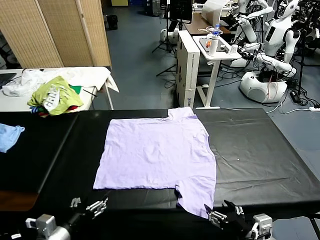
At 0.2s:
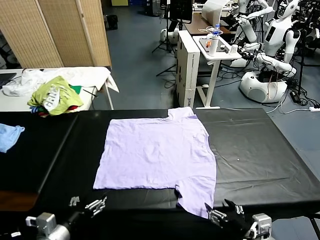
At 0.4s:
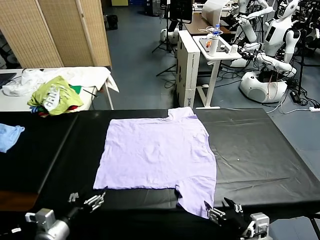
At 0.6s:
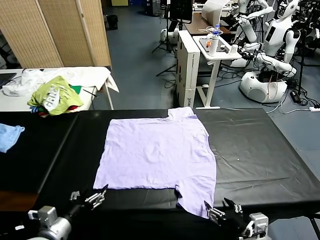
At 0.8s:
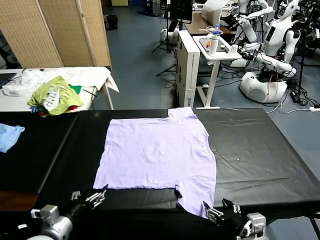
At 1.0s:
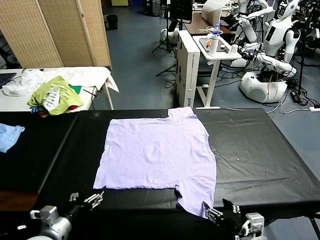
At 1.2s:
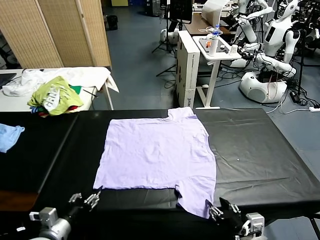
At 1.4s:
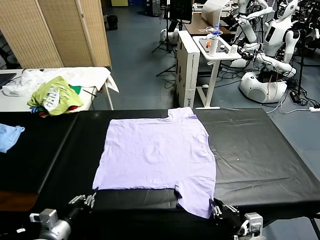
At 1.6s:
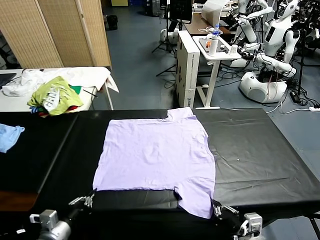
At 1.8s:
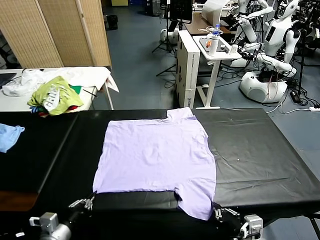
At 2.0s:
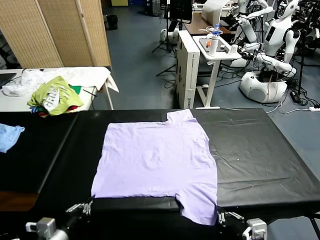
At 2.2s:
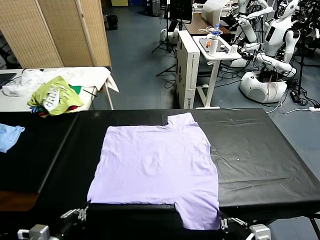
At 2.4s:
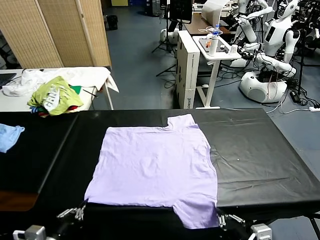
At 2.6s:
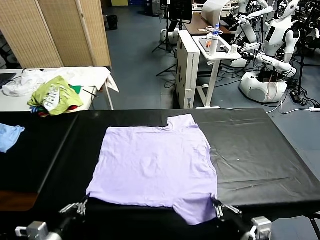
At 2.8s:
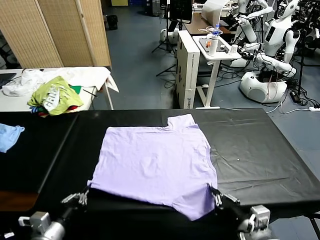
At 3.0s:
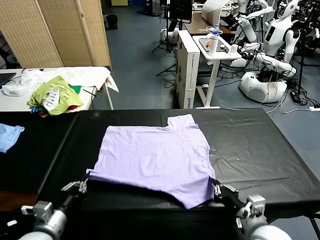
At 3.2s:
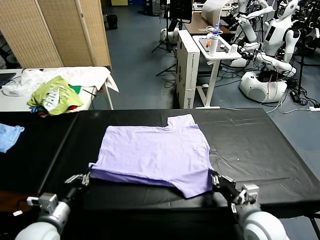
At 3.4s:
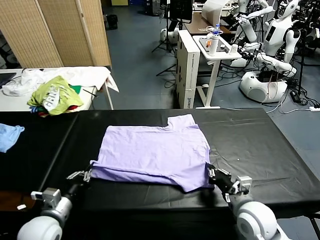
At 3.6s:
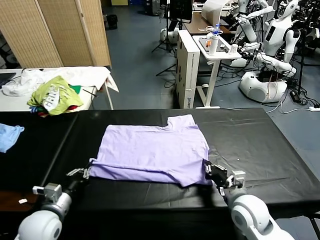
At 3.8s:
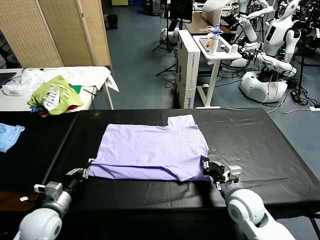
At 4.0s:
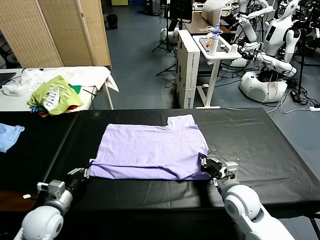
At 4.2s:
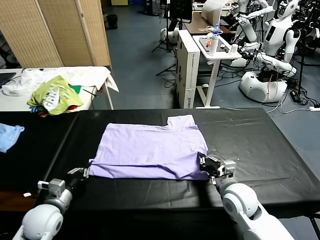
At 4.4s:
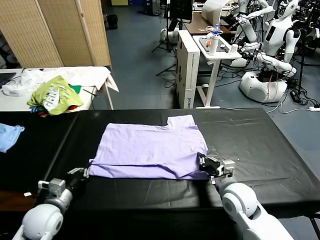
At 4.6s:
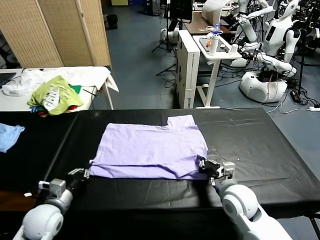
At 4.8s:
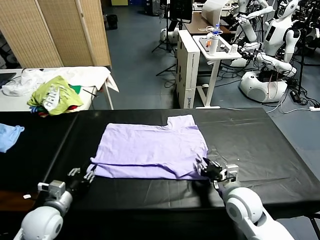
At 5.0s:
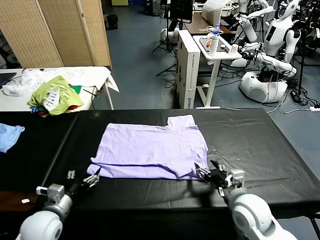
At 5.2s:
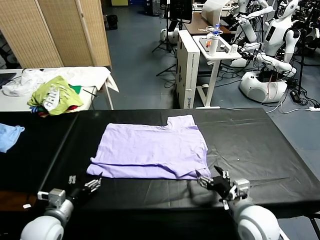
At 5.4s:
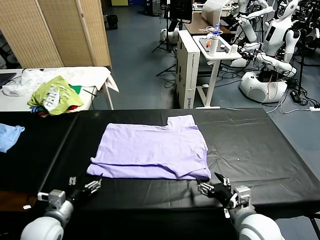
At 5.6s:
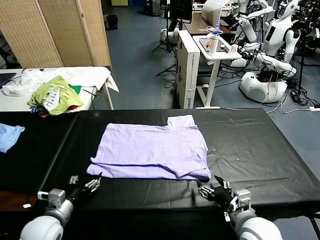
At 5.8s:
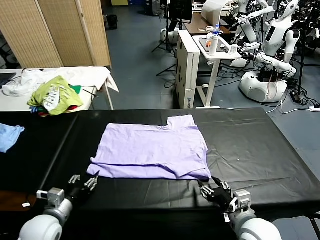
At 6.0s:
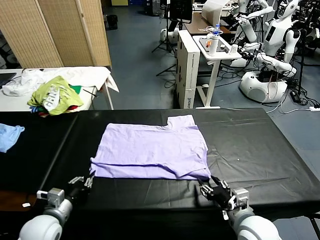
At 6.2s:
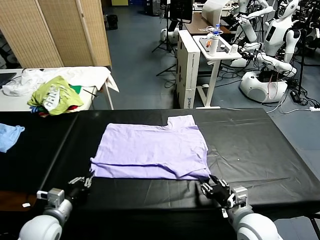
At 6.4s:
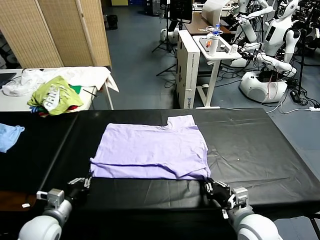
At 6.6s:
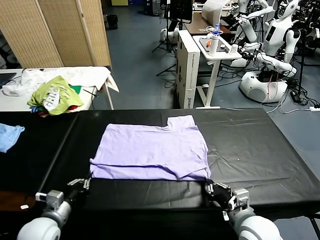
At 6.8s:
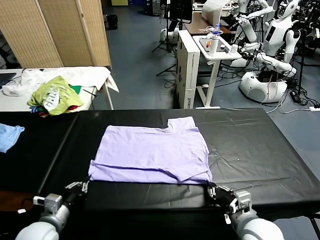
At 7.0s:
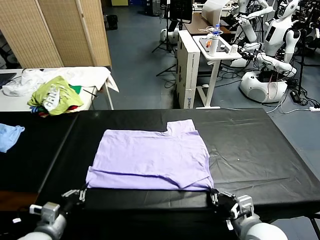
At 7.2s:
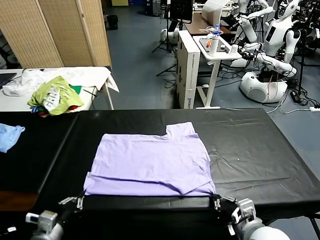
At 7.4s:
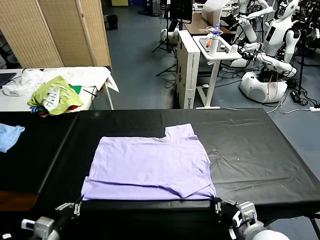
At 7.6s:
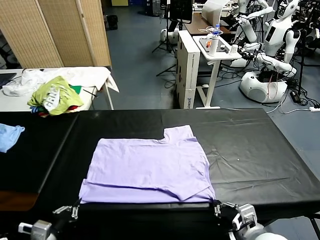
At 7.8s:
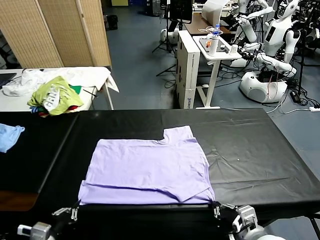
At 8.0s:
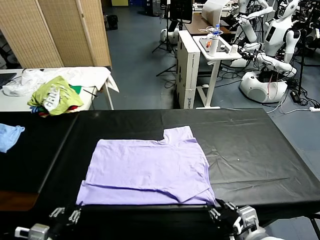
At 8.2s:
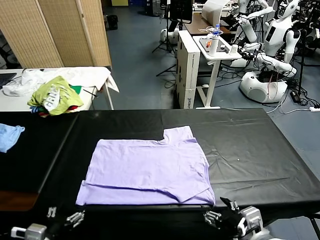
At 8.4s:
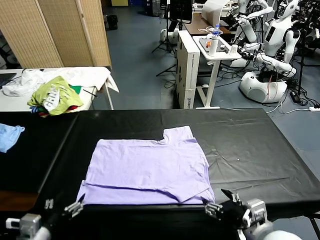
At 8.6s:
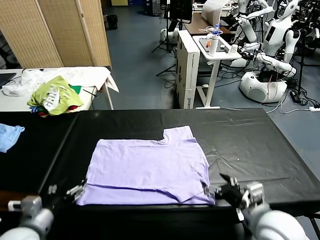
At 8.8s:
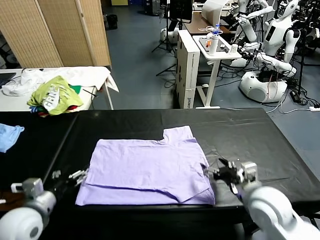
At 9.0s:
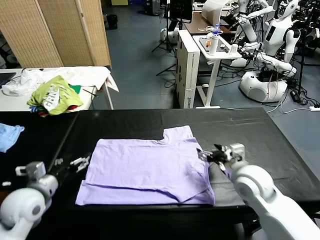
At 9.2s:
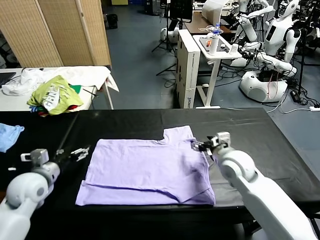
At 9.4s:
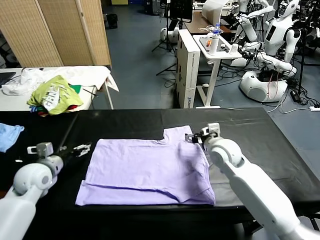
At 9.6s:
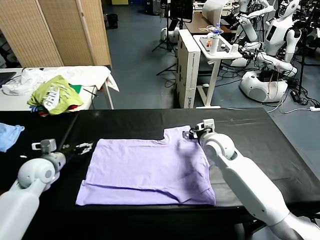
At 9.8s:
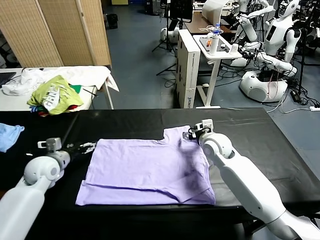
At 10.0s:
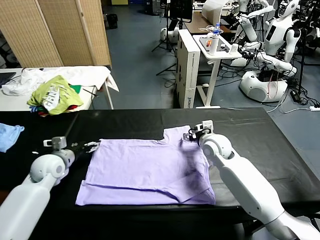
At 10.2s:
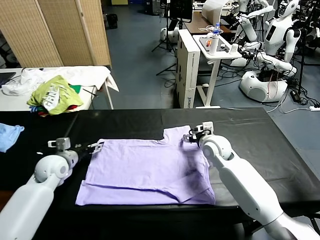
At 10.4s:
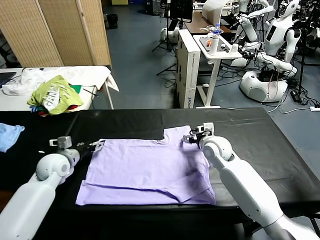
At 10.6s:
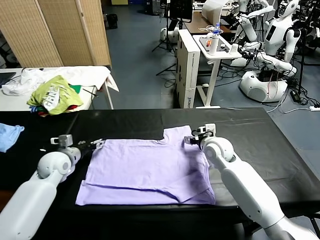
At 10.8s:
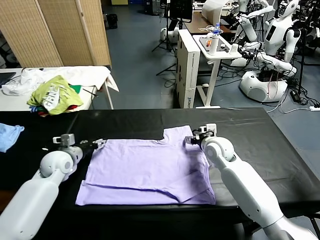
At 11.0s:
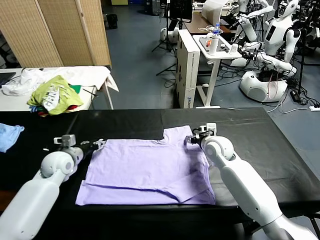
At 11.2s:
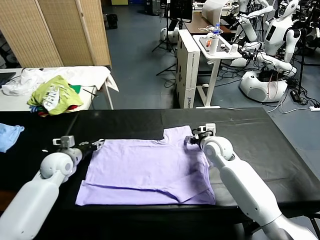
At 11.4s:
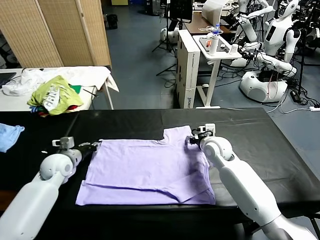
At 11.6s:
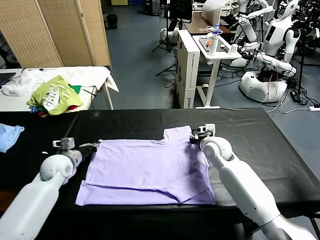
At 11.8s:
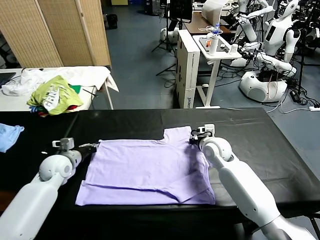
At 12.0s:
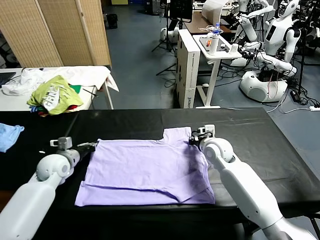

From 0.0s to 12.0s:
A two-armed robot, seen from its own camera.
Task of the whole recording: fold and organize the clothes.
Step, from 0.0s to 1.8s: use both grippers simultaneously to clamp the lower edge of the clothing fabric.
Step, from 2.0s to 4.8s: use both grippers to drag the lower edge of the fabric forward and fold it over the upper edge.
Step, from 5.2s to 8.0s: Drag the clothes downward with both gripper.
Step, from 8.4s to 12.0s: use both grippers simultaneously to clamp the upper edge of the clothing fabric.
From 1.6s to 3.0s: The right gripper shifts about 10 cm forward.
From 3.0s to 4.4s: The grippers both shift forward by roughly 5 cm.
From 4.4s to 6.0s: The right gripper heads backward, covering about 10 cm, and opens, then closes again. The left gripper opens and closes again.
From 6.0s to 7.6s: The left gripper goes about 10 cm backward, while the right gripper is displaced backward by some 5 cm.
From 7.6s to 9.0s: The grippers both shift forward by about 20 cm. The left gripper opens. Meanwhile the right gripper opens its fingers.
From 9.0s to 10.4s: The right gripper shifts roughly 5 cm forward. Meanwhile the left gripper travels forward by some 10 cm.
From 10.4s to 12.0s: The left gripper closes; the right gripper closes its fingers.

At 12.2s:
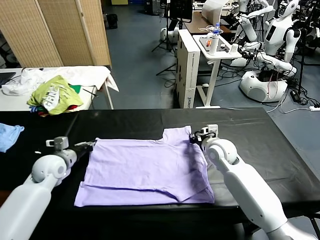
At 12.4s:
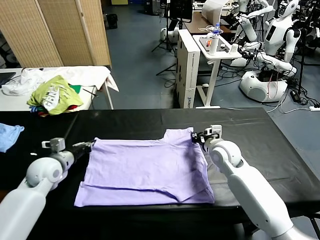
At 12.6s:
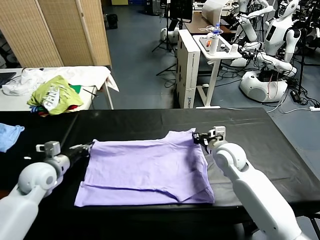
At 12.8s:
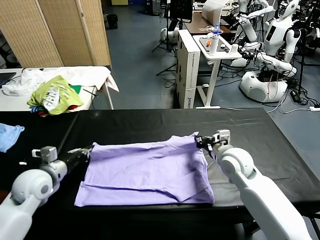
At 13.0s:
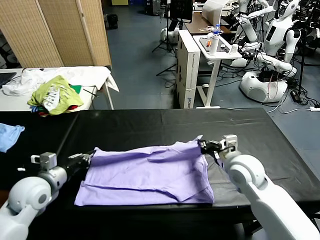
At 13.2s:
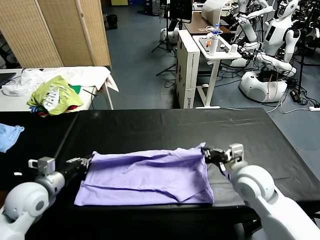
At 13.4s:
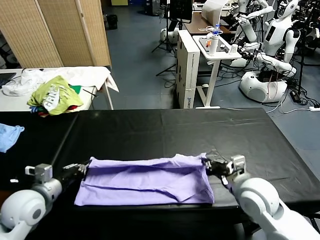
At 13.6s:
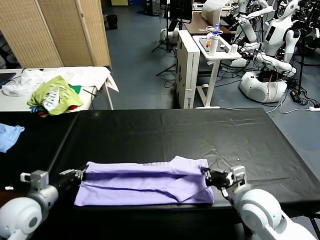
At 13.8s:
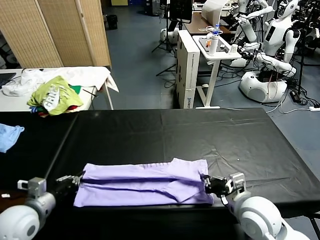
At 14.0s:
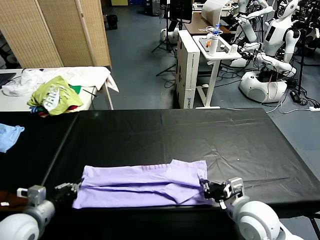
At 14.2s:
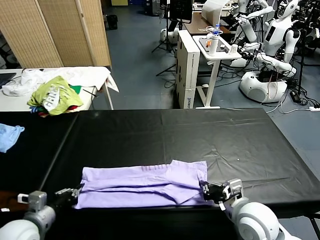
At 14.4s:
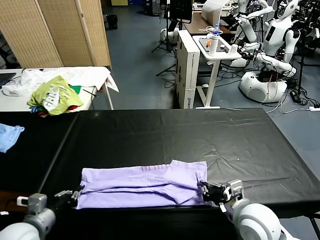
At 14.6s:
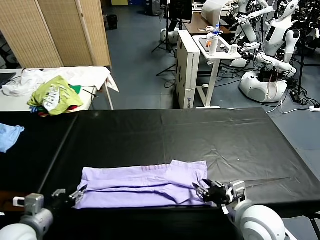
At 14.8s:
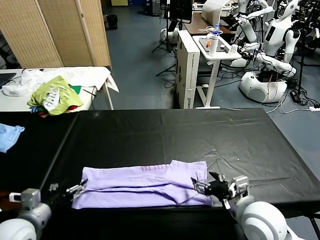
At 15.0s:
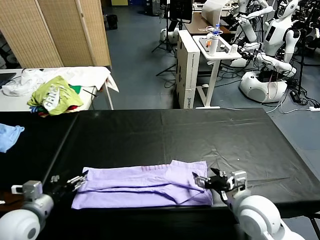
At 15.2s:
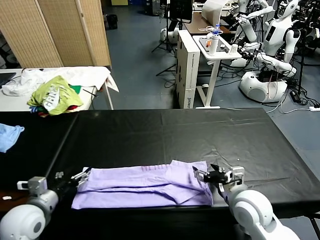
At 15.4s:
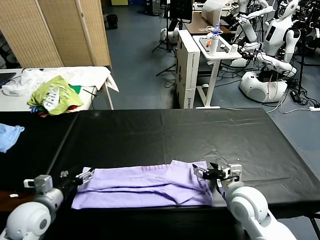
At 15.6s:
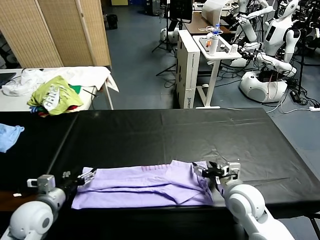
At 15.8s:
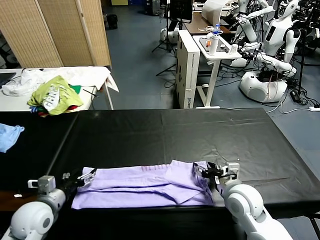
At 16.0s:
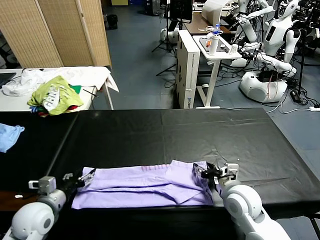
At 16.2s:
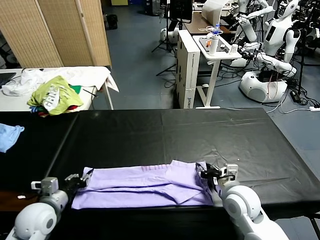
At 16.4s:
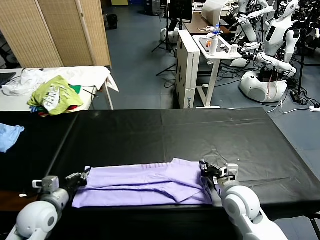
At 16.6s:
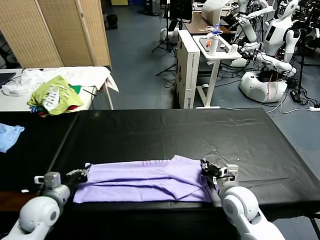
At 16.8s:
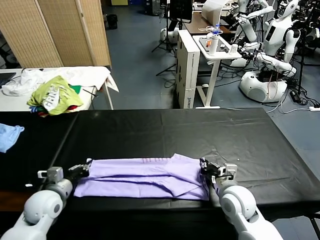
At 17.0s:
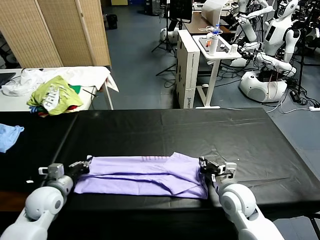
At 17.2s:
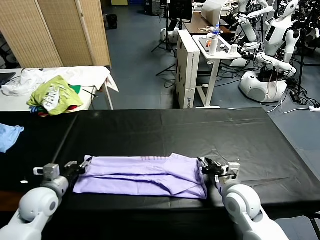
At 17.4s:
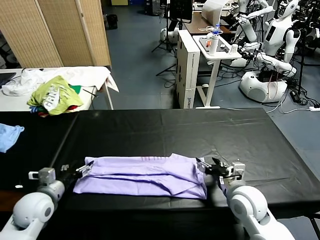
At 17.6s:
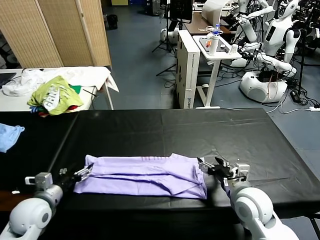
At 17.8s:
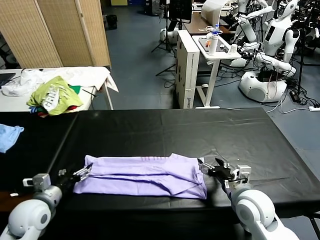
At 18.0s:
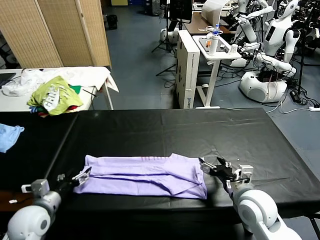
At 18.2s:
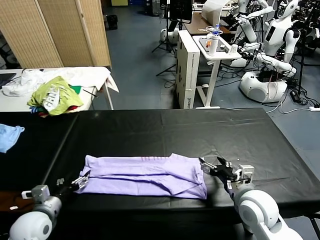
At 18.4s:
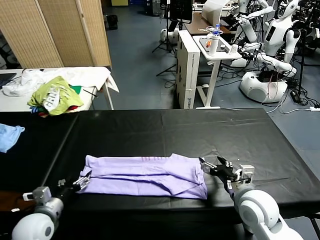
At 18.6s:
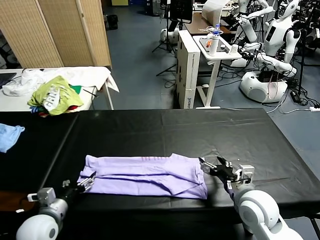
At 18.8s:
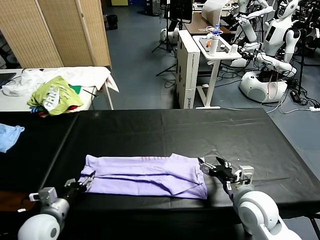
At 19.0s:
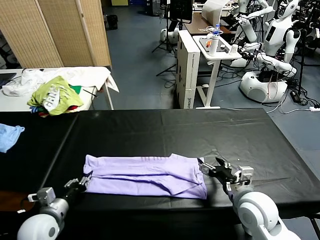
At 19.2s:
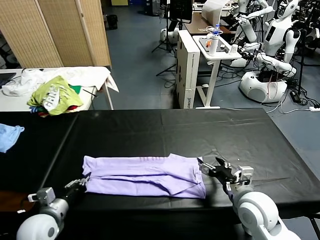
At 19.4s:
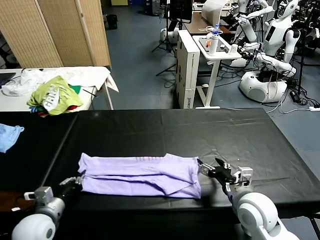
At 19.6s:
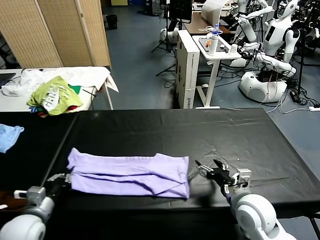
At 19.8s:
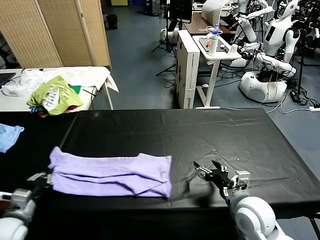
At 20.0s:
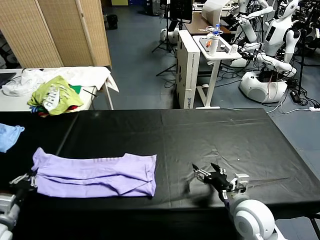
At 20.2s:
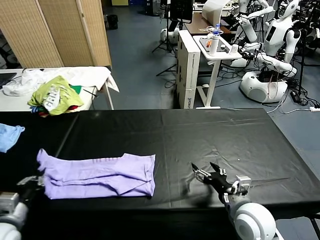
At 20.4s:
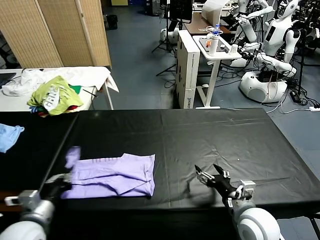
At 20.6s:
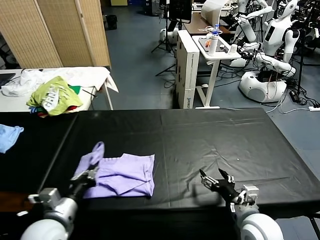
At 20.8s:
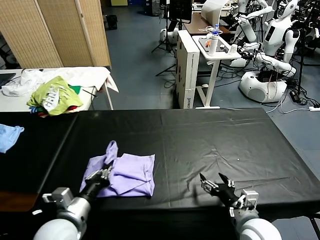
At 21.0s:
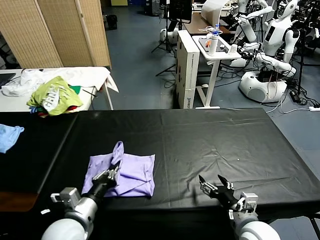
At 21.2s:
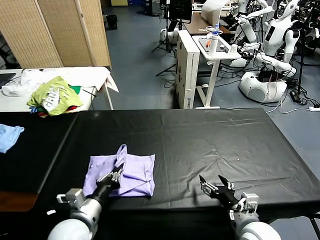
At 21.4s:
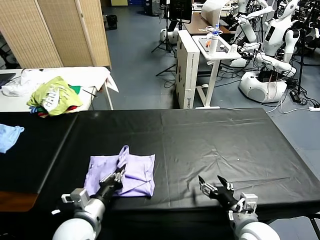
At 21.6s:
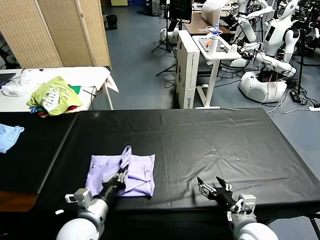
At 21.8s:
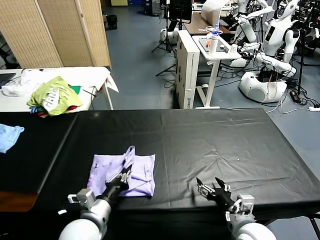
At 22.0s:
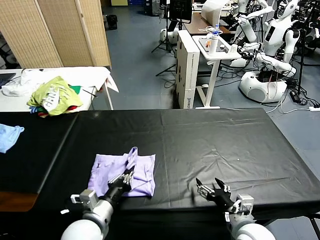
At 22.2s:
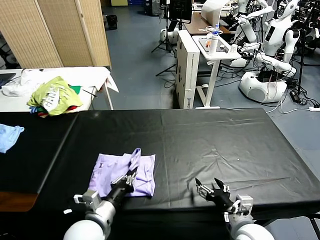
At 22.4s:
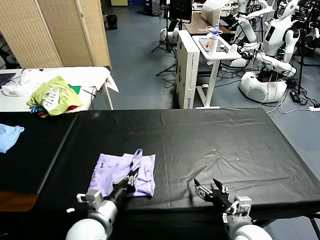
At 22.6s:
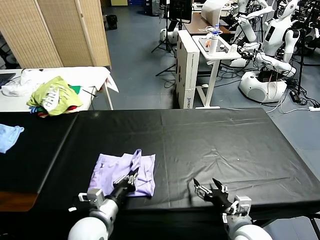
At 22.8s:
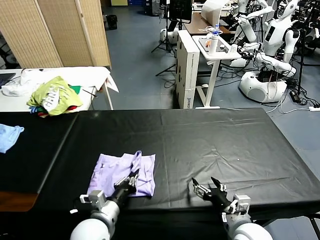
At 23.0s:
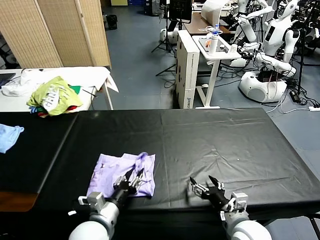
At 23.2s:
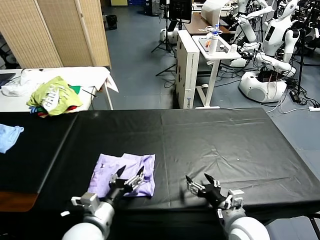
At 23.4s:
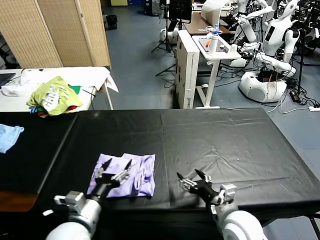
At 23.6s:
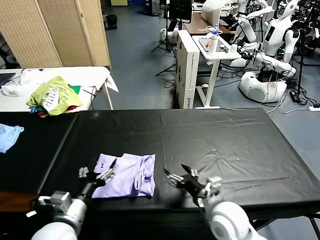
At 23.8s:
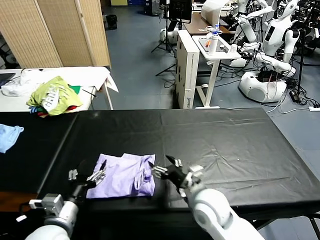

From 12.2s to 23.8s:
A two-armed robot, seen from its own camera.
Task of the whole recording: fold and organize the clothes.
Step, from 12.2s to 14.6s: use both grippers to drag the upper edge of the fabric backward and fold it over the lower edge.
Step, from 14.8s to 19.2s: use the left gripper to clamp the left edge of the fabric.
Step, from 19.4s to 23.2s: use the left gripper to drag the left edge of the fabric to the left and folds it over the right edge.
From 12.2s to 13.6s: Both grippers move backward, roughly 20 cm.
From 13.6s to 15.0s: The right gripper opens. Meanwhile the left gripper opens up.
From 15.0s to 16.6s: The right gripper shifts by some 5 cm, and closes; the left gripper shifts approximately 10 cm forward and downward, and closes its fingers.
From 16.6s to 18.0s: The left gripper opens; the right gripper shifts by about 5 cm, and opens.
From 18.0s to 19.4s: The left gripper closes.
From 19.4s to 21.0s: The left gripper moves to the right, approximately 10 cm, while the right gripper heads backward, covering approximately 5 cm.
From 21.0s to 22.4s: The left gripper shifts by about 5 cm.
From 22.4s to 23.8s: The left gripper moves to the left, about 10 cm, and opens up. The right gripper is displaced to the left and forward by about 15 cm.
